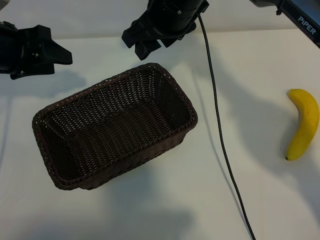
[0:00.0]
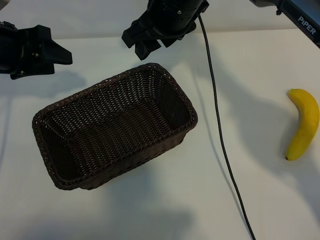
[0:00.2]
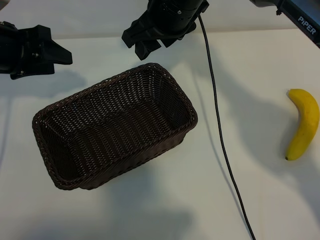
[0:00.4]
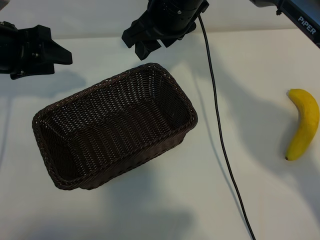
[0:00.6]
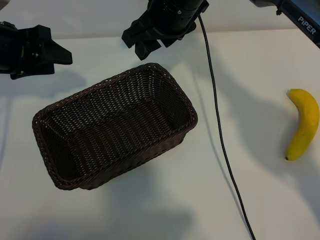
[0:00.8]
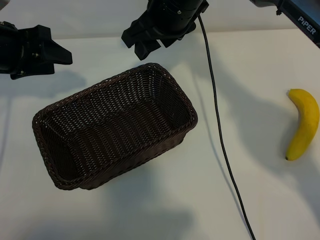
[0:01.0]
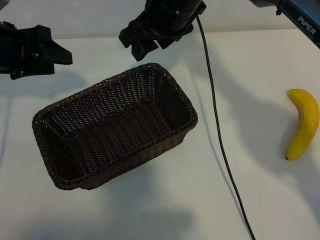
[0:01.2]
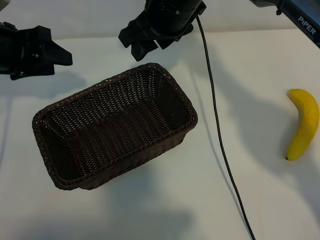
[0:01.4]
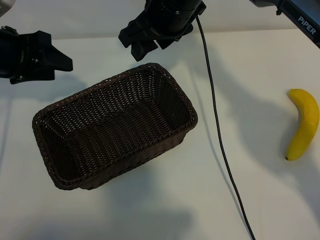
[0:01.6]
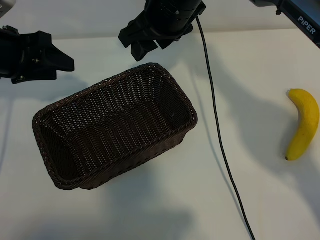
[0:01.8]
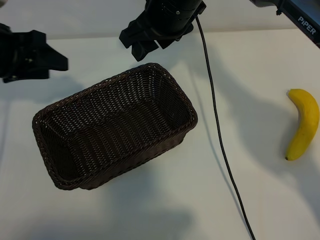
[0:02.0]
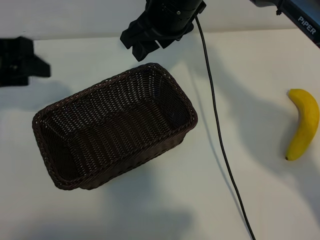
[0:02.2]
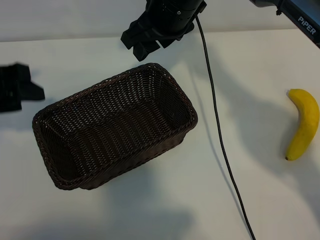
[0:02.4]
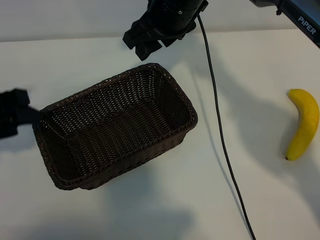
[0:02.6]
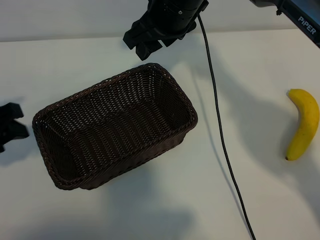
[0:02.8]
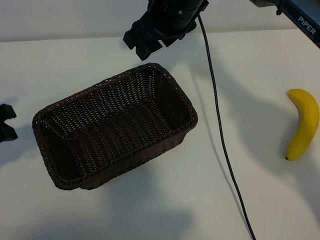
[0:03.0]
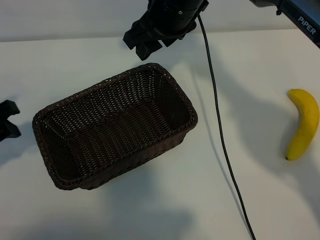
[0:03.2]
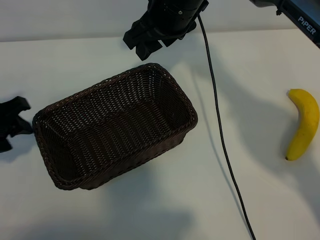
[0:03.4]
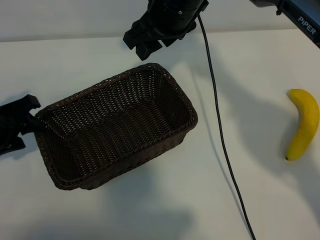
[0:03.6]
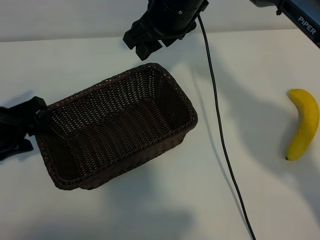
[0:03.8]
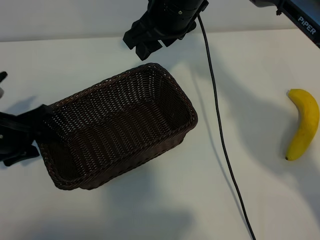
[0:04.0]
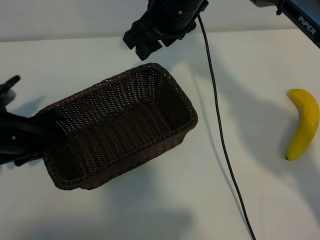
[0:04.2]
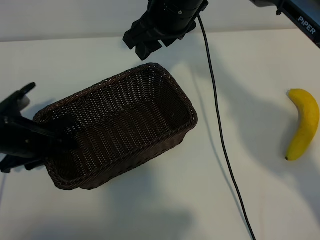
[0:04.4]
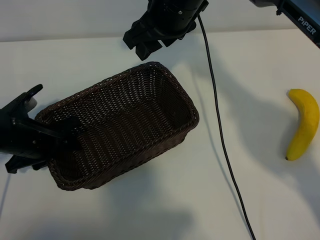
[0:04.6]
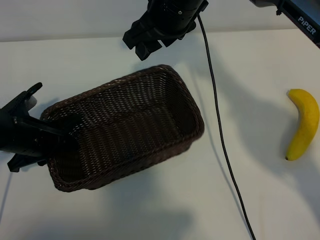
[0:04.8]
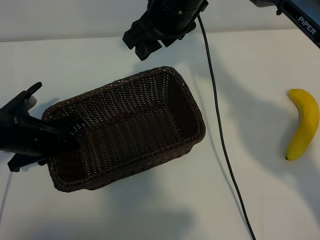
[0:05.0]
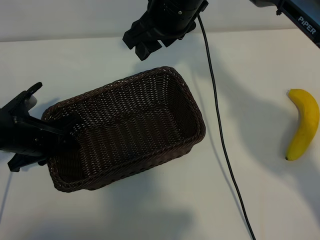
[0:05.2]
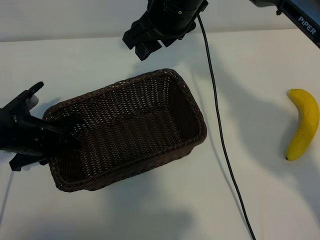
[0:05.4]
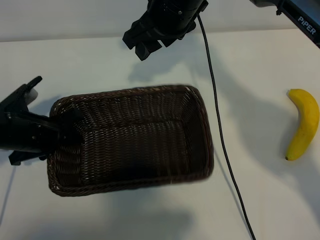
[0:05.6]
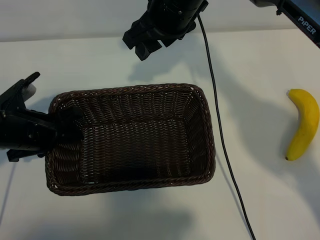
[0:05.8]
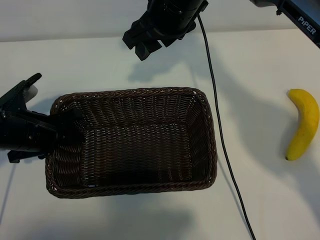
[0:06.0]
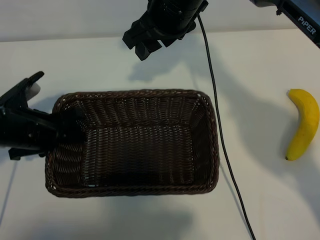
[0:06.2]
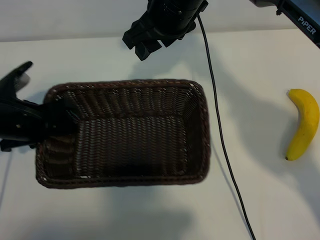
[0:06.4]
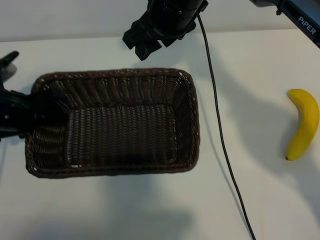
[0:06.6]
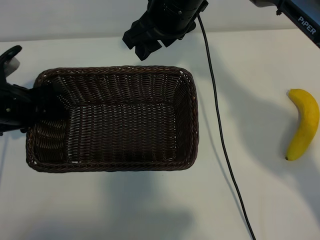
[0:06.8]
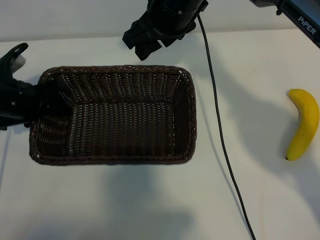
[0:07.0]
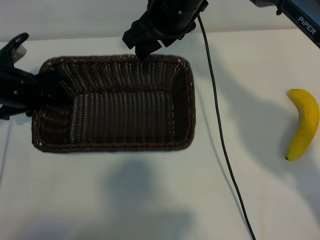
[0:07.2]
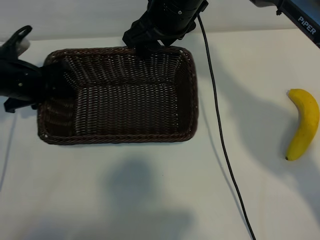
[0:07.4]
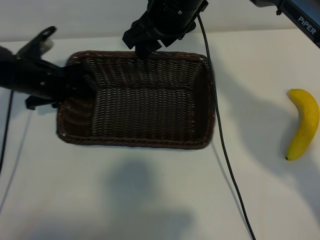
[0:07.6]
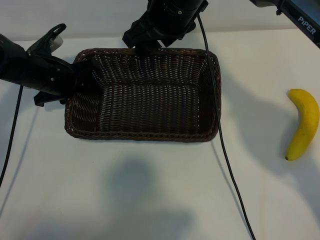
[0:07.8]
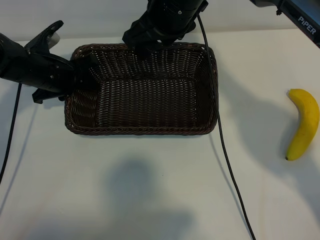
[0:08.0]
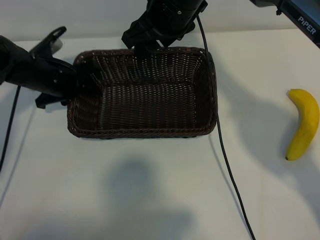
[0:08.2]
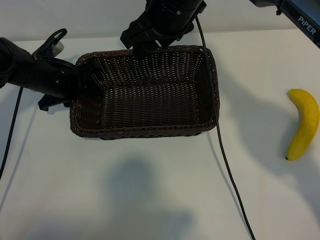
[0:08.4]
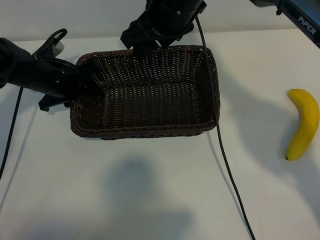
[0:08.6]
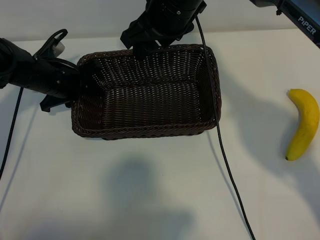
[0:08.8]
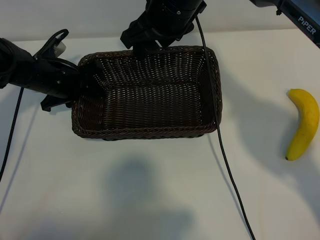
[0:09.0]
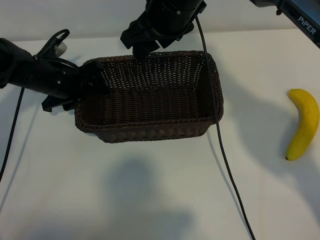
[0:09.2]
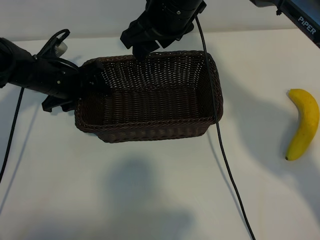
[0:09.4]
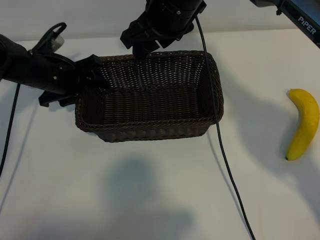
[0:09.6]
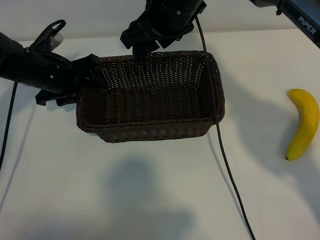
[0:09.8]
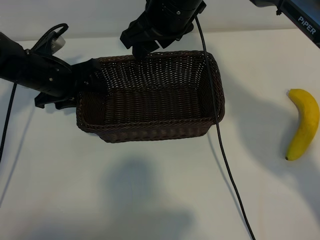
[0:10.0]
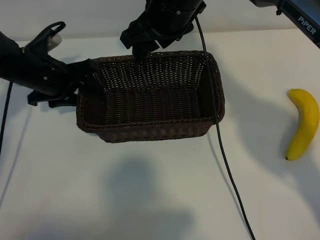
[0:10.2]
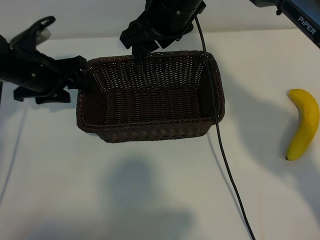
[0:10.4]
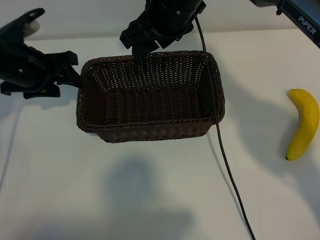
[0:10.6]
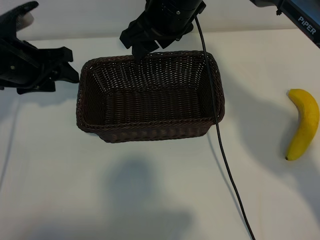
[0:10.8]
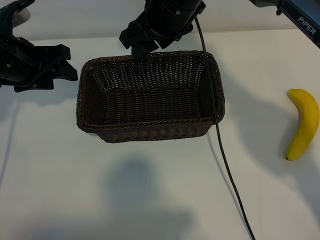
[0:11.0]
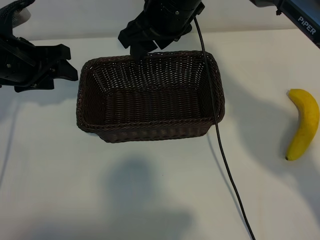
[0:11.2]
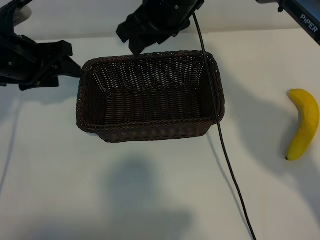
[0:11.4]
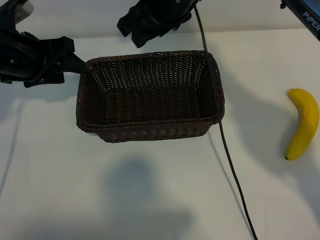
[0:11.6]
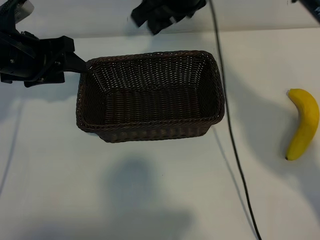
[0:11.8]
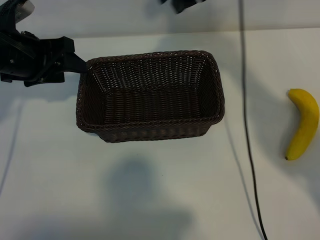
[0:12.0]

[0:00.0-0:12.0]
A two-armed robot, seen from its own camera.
Task of the whole recording: pick up the banana and put it into the basket.
Step, 0:01.0 to 0:04.8: Grasp the basket with the left gripper.
Step, 0:05.0 to 0:10.4: Place the basket in the center of the table with the left gripper.

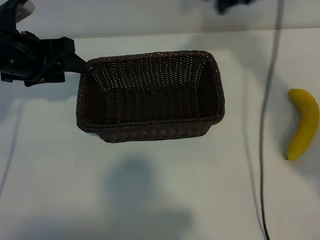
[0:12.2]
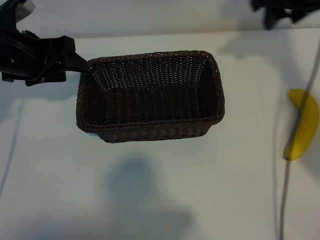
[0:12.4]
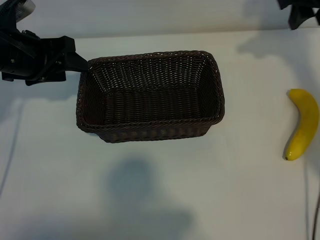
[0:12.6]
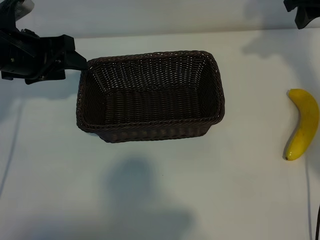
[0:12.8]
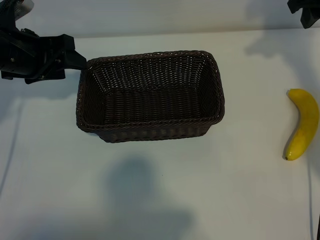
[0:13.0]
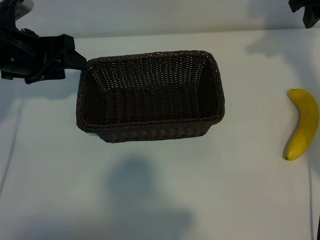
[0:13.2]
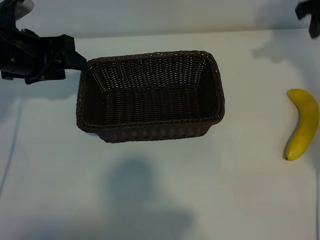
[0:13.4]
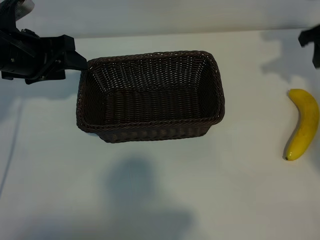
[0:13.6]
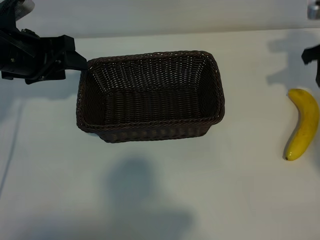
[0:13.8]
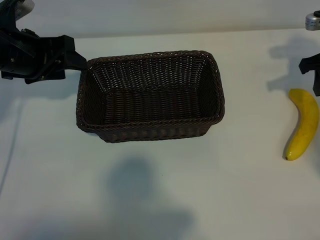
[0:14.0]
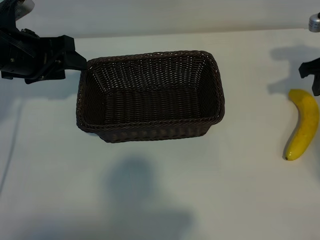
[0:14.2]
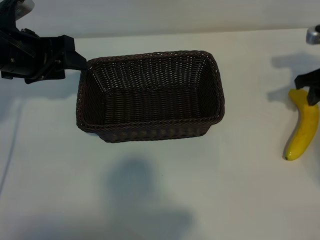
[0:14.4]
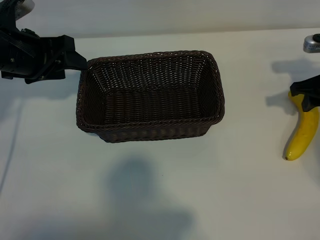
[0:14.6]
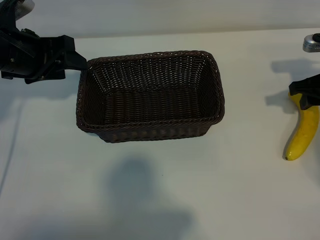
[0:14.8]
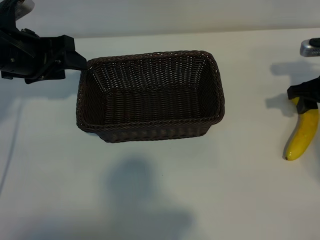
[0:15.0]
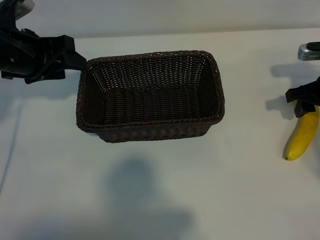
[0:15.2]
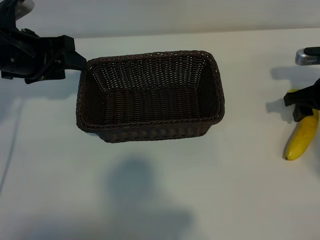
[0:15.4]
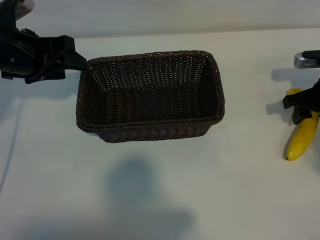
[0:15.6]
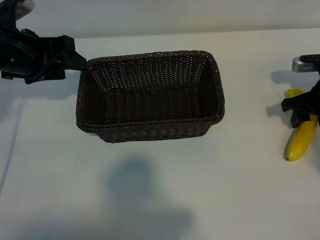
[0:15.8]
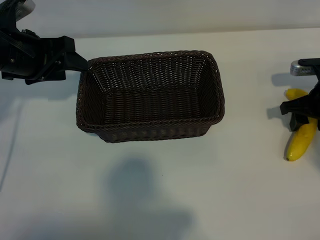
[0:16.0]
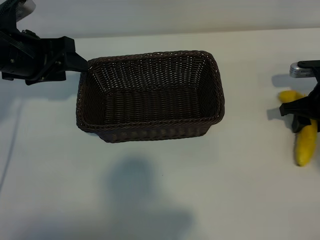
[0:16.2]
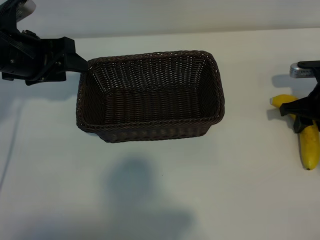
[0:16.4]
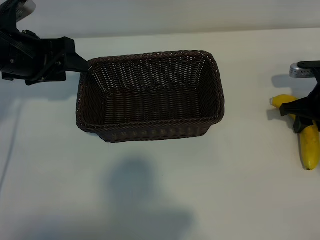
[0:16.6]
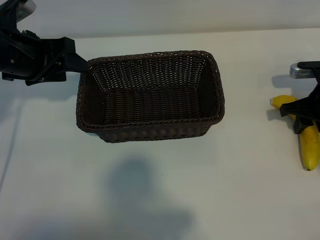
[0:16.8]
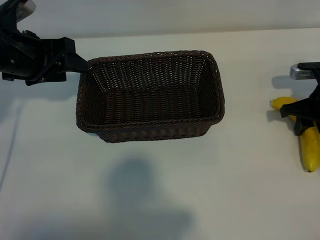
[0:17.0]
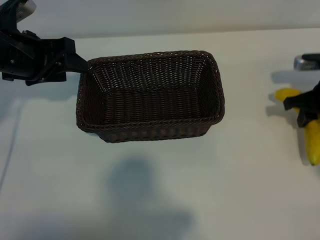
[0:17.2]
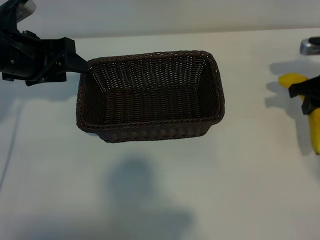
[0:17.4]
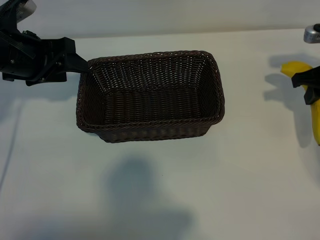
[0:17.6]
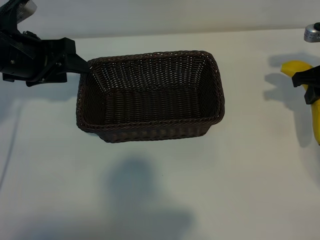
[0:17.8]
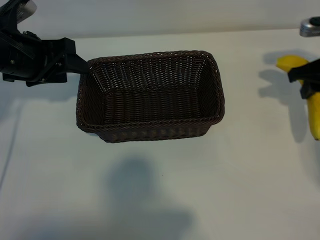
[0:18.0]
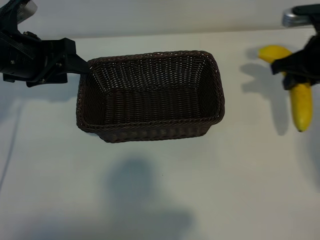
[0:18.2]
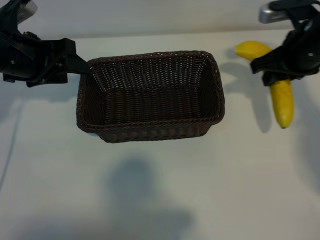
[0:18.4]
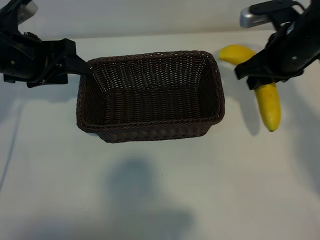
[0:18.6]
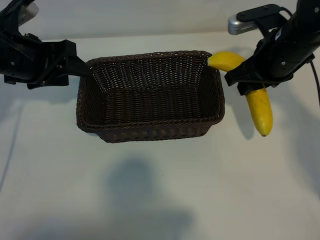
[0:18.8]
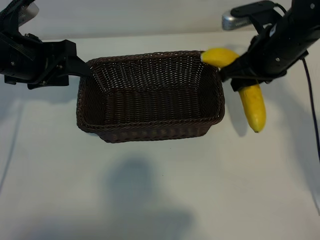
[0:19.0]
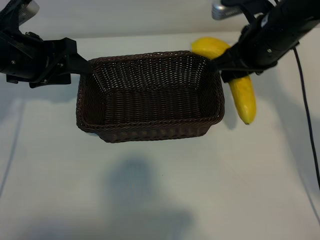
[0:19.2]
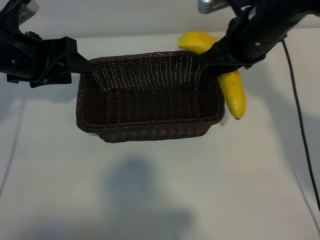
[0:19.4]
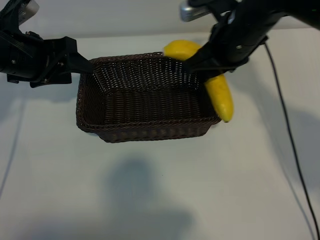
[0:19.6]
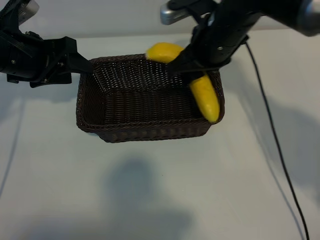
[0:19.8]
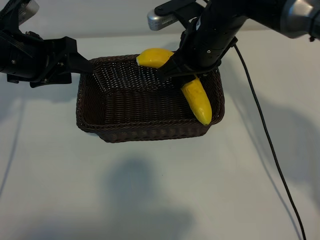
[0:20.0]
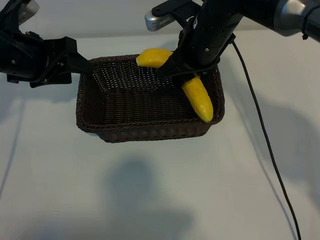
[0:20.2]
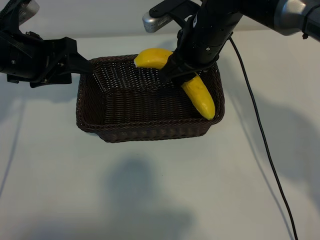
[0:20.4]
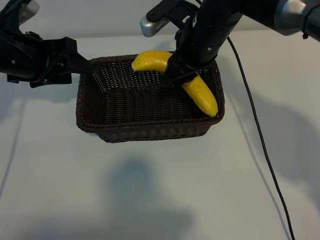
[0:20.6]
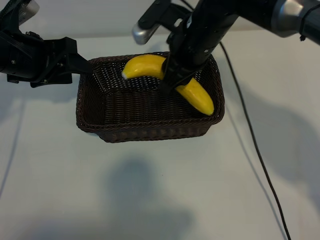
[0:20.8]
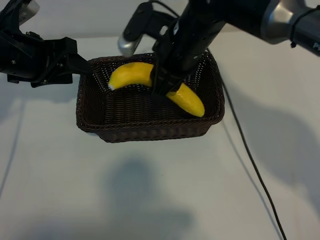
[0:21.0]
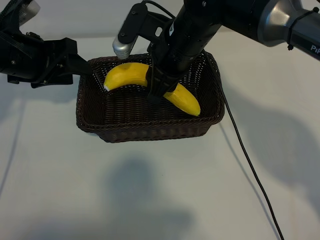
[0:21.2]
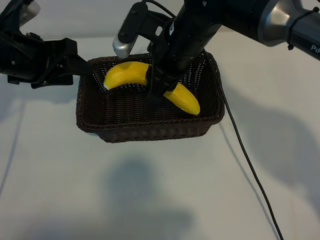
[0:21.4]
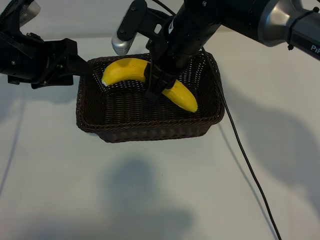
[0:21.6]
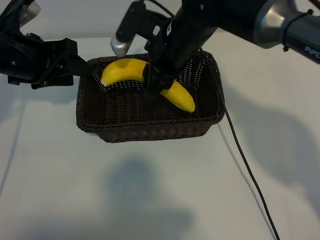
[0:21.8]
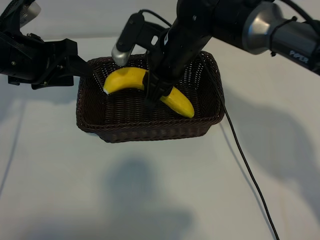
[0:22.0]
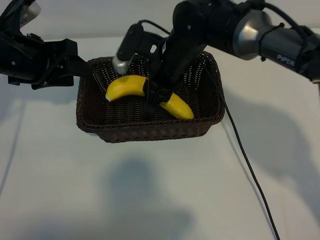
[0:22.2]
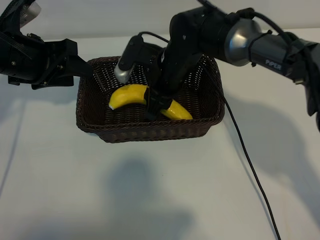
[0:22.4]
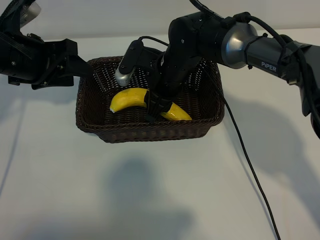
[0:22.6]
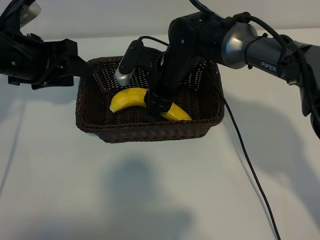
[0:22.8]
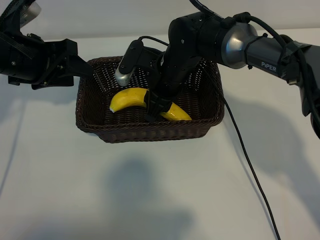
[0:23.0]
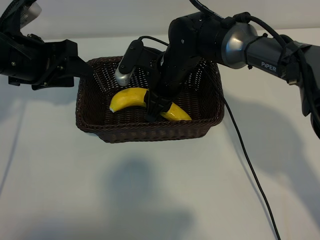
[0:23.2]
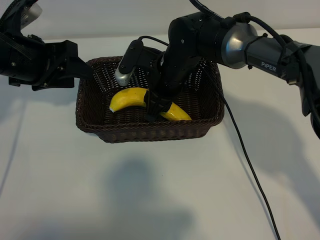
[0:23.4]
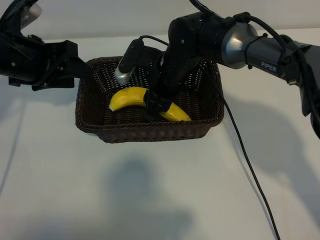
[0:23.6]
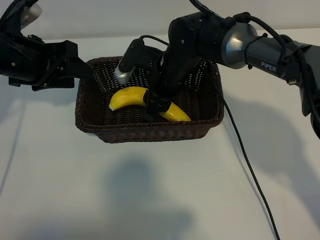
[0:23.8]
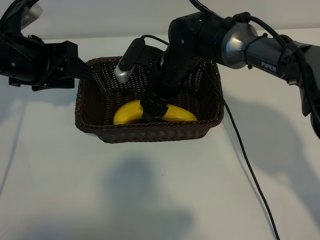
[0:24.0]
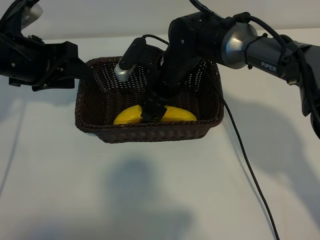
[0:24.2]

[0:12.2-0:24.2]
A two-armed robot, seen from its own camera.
Task of the whole recording: pick up the banana and put it into the basket.
Step, 0:12.2 to 0:16.4: Grasp the banana with right gripper.
